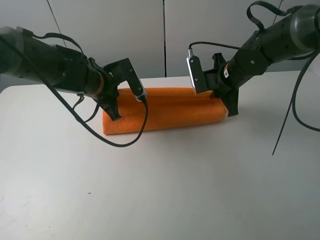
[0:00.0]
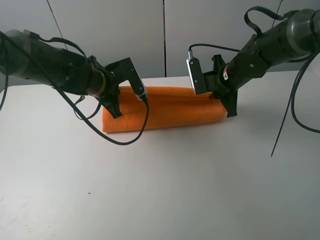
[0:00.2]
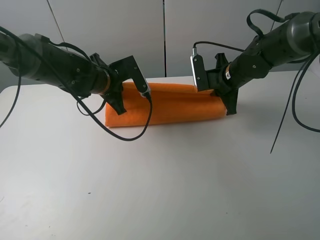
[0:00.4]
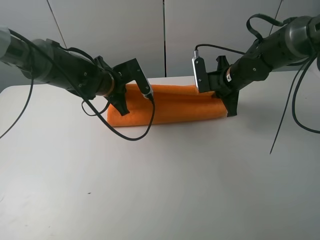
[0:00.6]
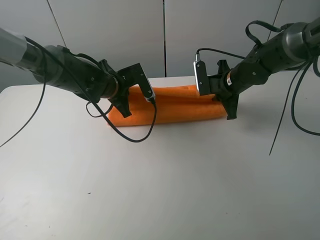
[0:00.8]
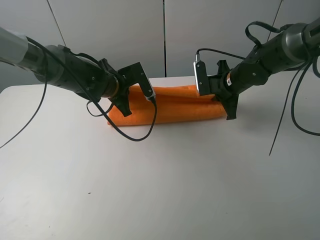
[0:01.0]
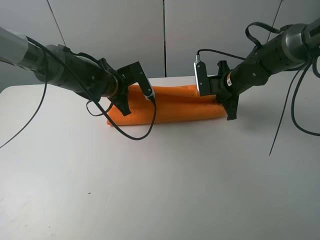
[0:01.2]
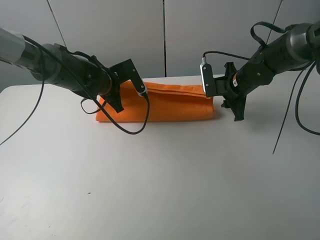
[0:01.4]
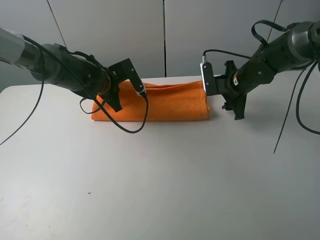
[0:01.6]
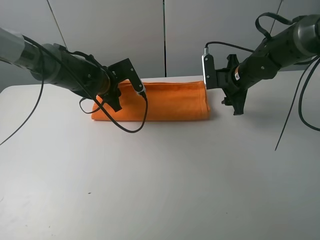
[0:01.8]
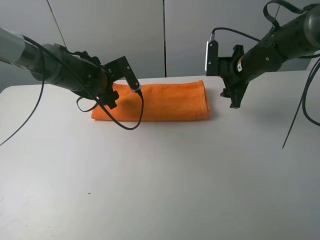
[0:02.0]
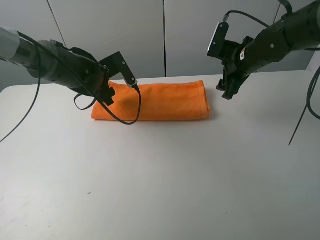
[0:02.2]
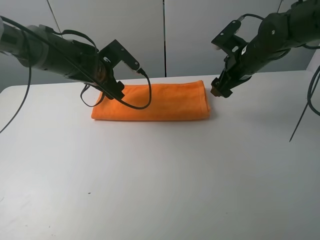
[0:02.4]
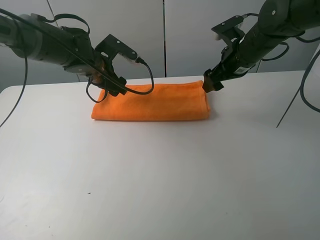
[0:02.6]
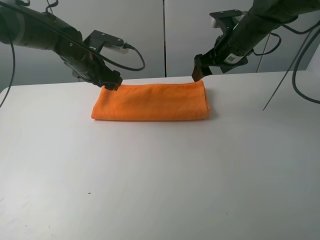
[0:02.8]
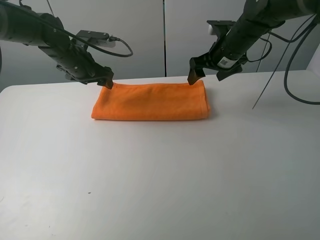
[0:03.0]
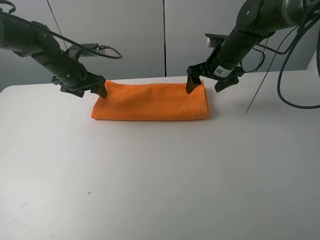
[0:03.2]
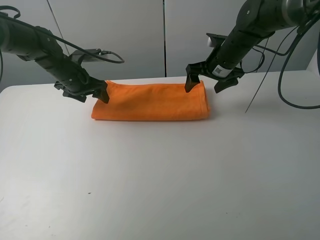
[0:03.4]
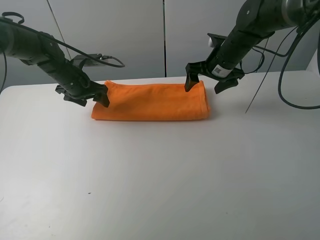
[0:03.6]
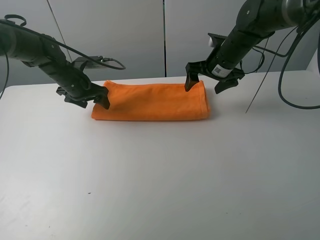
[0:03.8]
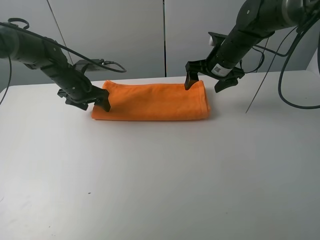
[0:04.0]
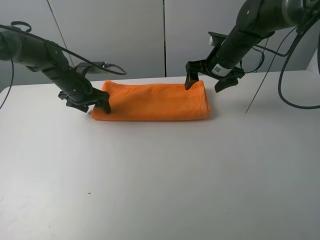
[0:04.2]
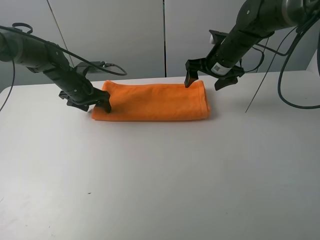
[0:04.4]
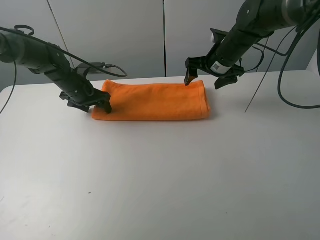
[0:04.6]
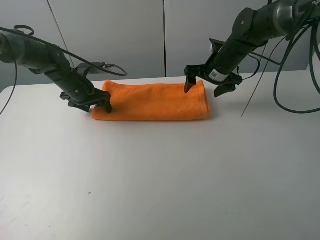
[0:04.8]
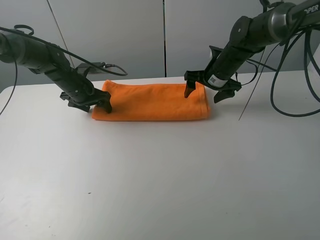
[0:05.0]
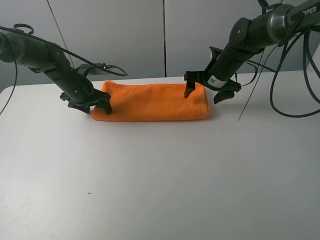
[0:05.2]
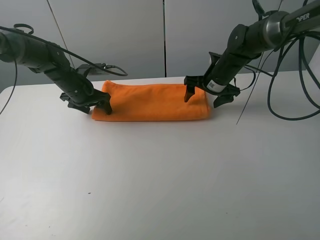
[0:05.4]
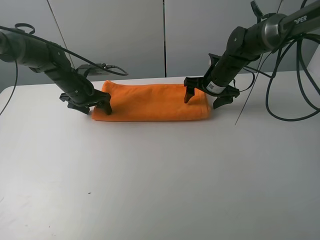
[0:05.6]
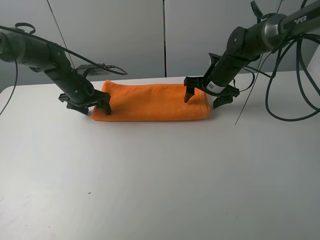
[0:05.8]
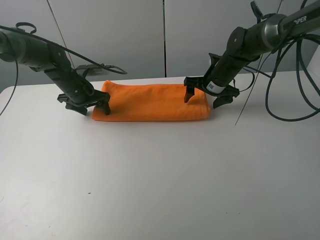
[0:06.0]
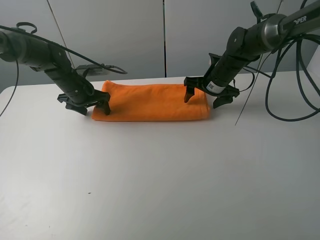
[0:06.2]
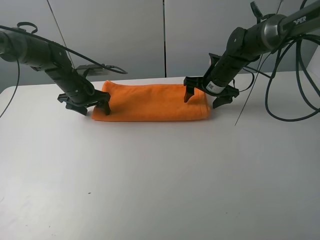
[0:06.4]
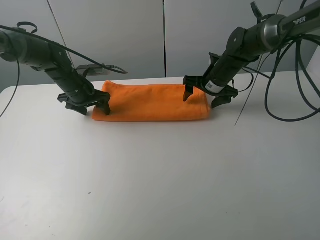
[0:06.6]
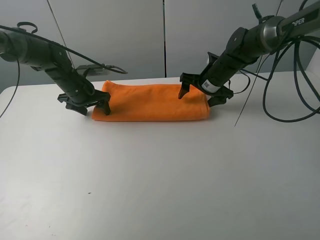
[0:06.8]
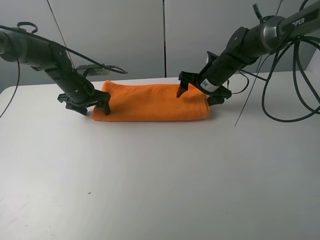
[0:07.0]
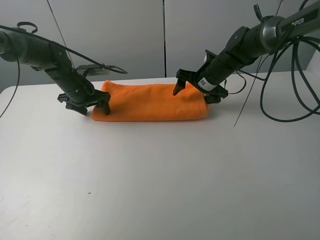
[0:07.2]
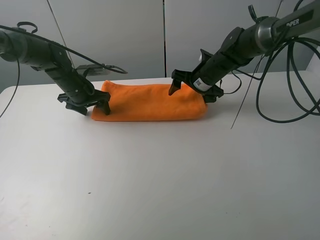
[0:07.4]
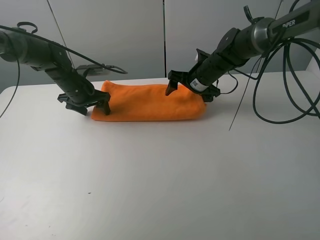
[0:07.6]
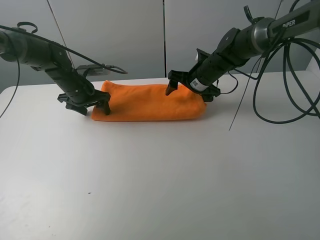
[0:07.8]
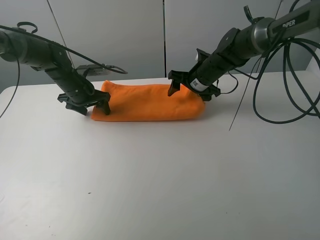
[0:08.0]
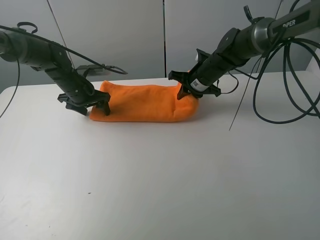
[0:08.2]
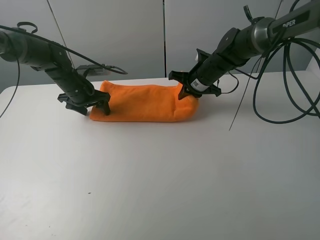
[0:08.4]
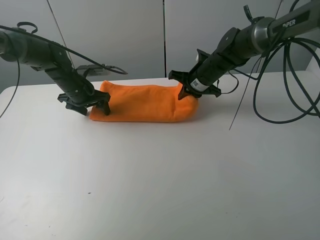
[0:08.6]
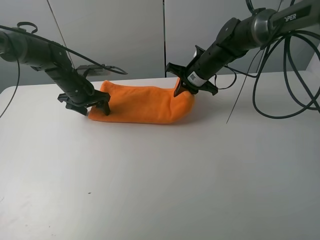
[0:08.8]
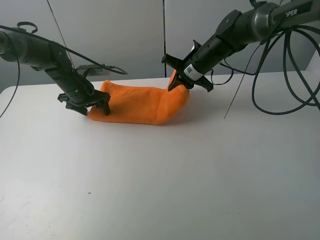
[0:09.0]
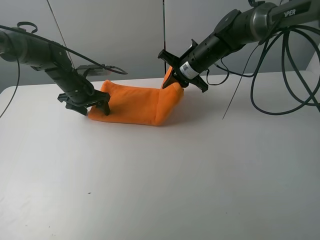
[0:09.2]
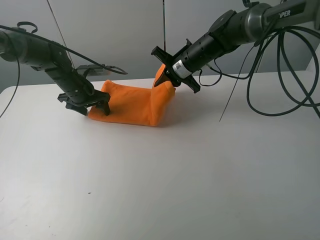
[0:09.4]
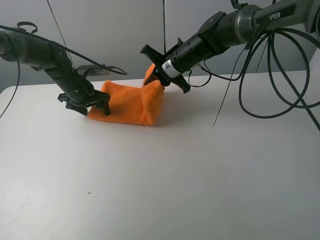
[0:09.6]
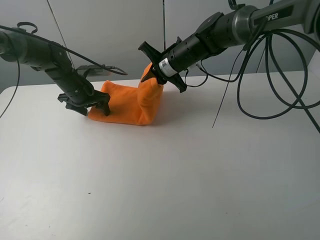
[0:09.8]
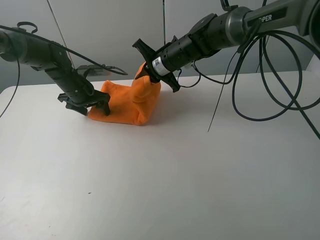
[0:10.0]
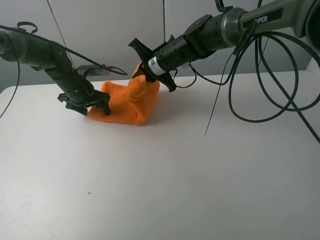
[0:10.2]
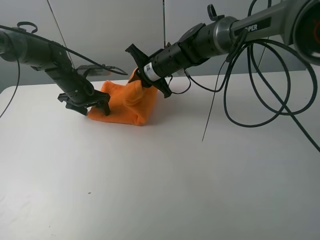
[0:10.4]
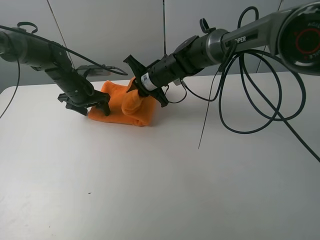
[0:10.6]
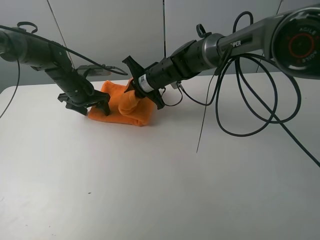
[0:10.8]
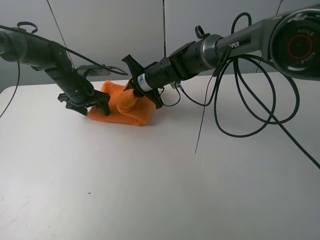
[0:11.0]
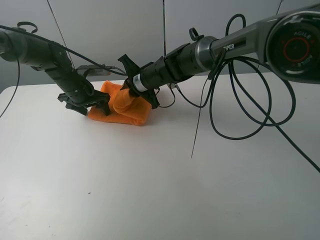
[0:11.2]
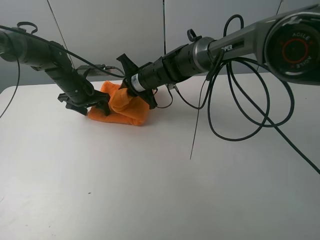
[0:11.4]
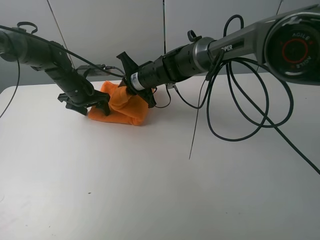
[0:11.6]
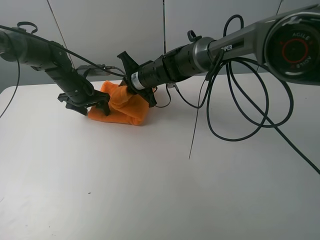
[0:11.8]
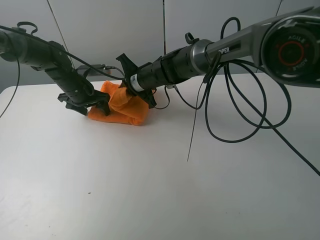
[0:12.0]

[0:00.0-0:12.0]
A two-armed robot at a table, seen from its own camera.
Task of the whole recording: fold the towels on the table.
Step, 0:00.0 to 0:02.0: Fold the orange towel upwards with the right gripper.
Step, 0:02.2 to 0:04.6: Press on the orange towel with the left gripper.
0:00.0 to 0:01.6: The right gripper opens its fingers. The left gripper shifts by some 5 cm.
0:01.6 to 0:03.0: The right gripper moves upward, some 5 cm, and opens; the left gripper heads to the left, covering some 5 cm, and opens up.
0:03.0 to 0:04.4: The left gripper moves downward, about 5 cm.
0:04.4 to 0:06.0: The right gripper goes approximately 5 cm downward.
0:06.0 to 0:07.6: The grippers make only small movements.
0:07.6 to 0:09.0: The right gripper closes up.
0:09.0 to 0:10.4: The right gripper travels to the left by approximately 10 cm.
0:10.4 to 0:12.0: The grippers stay close to where they were, moving slightly.

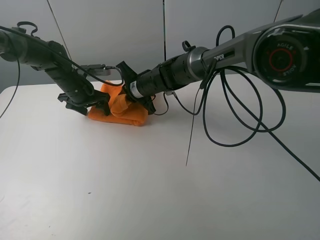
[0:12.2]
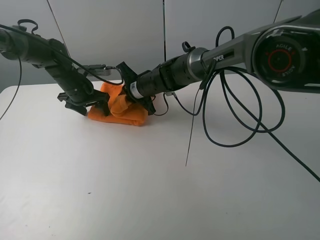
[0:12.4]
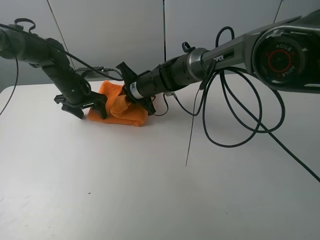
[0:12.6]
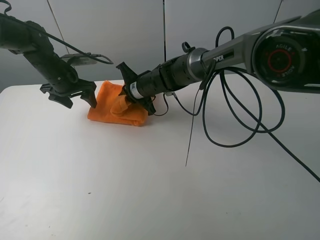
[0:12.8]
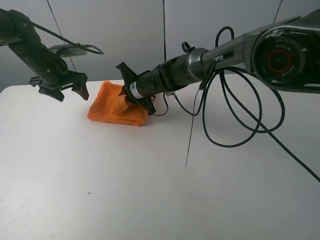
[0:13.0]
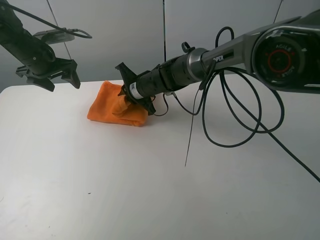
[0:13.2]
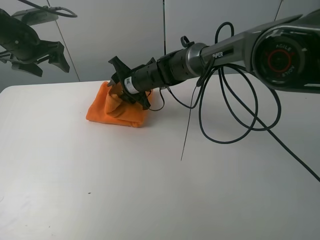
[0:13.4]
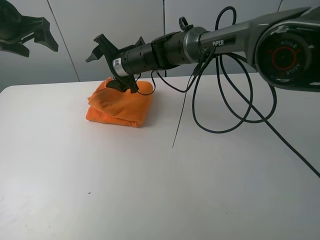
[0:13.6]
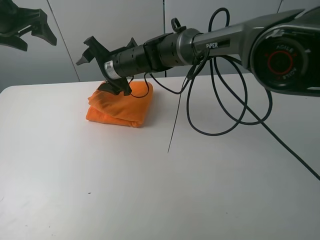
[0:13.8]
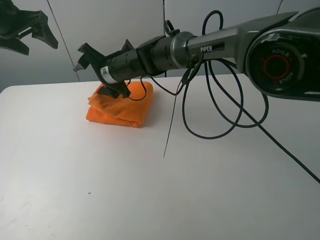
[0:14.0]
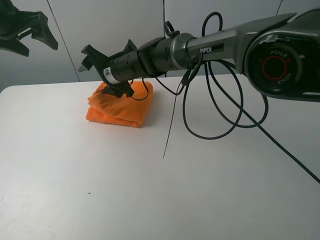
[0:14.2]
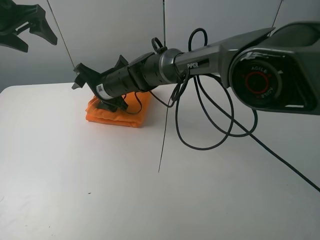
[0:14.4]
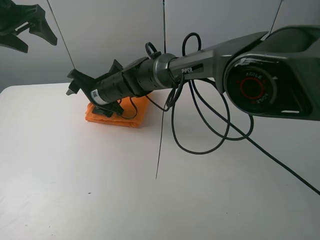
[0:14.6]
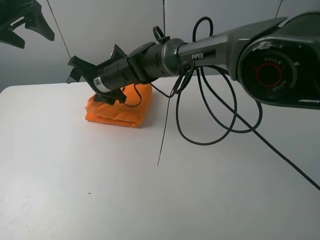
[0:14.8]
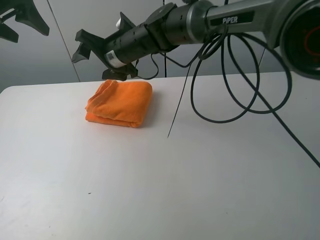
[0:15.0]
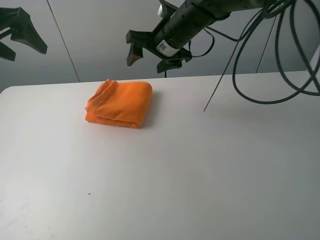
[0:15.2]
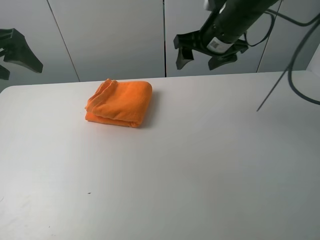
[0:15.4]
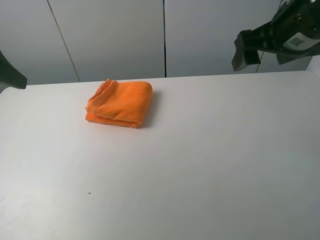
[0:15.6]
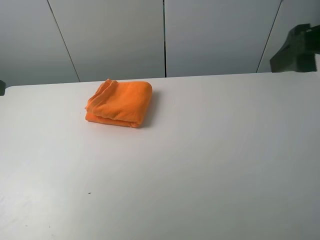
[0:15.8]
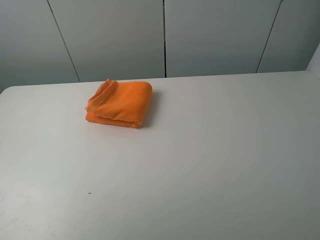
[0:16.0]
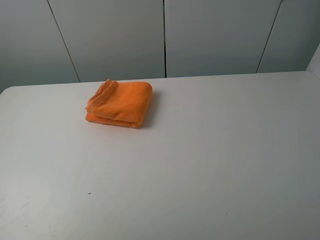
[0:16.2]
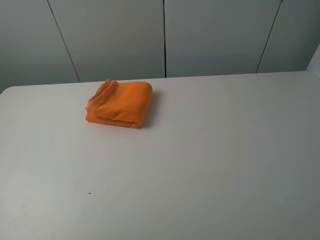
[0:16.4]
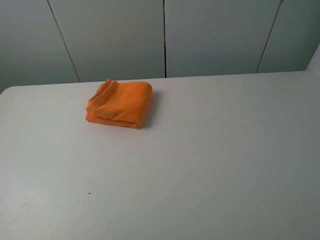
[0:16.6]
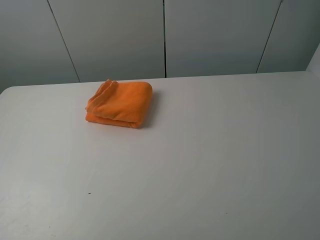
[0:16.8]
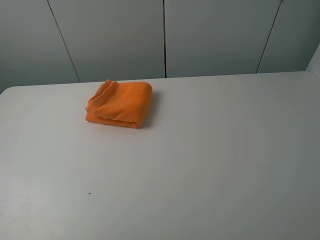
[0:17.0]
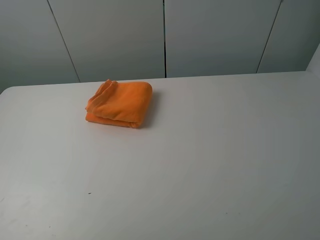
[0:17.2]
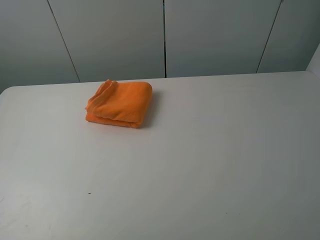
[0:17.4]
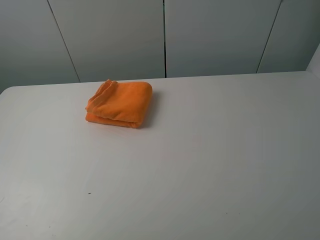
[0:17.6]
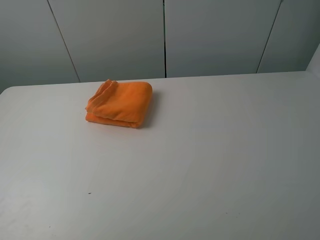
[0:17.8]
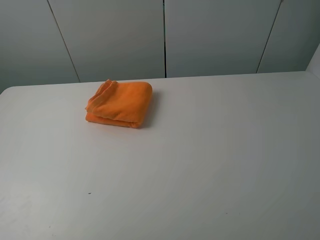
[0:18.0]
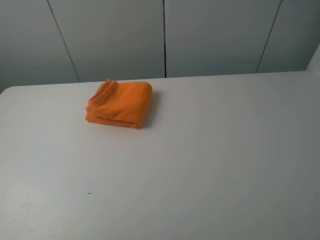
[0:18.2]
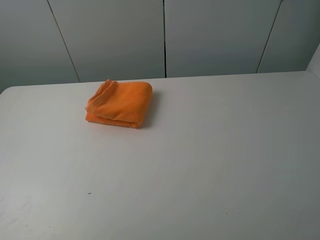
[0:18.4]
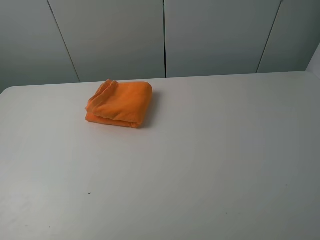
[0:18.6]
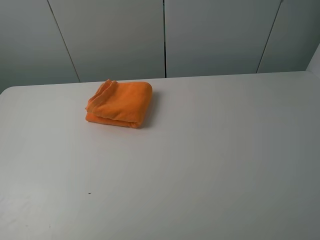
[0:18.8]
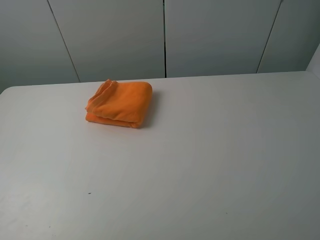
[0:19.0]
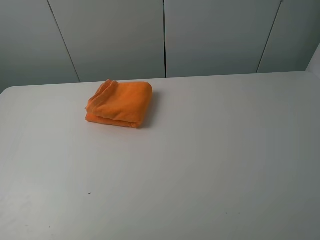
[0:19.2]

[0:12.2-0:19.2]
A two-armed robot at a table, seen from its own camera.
Task of the whole recording: fold the towels on the table.
Step, 0:13.6 to 0:14.8: Arrange the orange towel with the right hand.
0:12.2 to 0:13.6: The left gripper shifts about 20 cm upward and to the left; the right gripper goes about 5 cm upward, and opens up.
0:13.6 to 0:15.0: Both grippers travel together upward, about 5 cm.
0:15.0 to 0:16.4: The right gripper is displaced backward and to the right by some 50 cm. Meanwhile the left gripper heads backward, covering roughly 35 cm.
